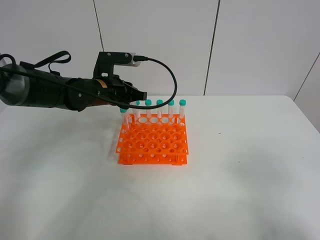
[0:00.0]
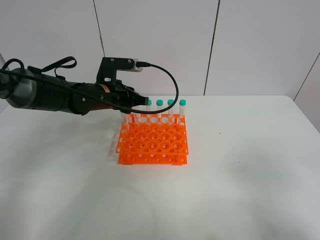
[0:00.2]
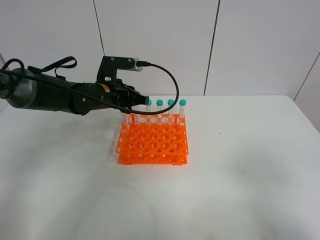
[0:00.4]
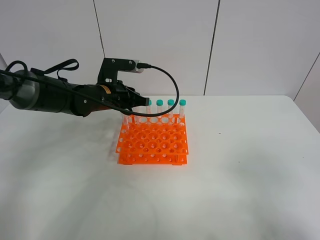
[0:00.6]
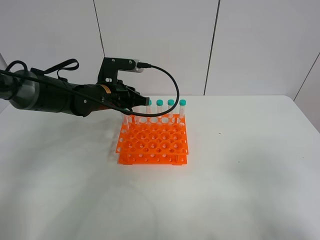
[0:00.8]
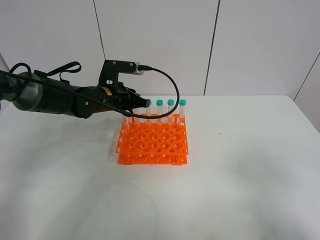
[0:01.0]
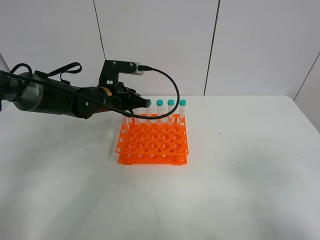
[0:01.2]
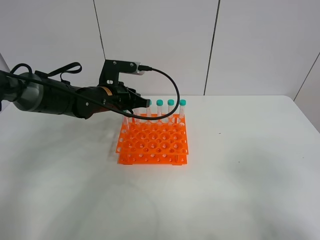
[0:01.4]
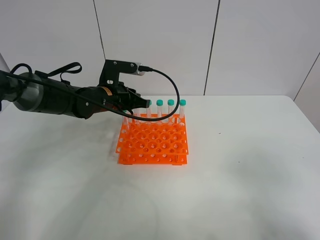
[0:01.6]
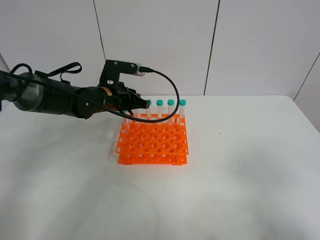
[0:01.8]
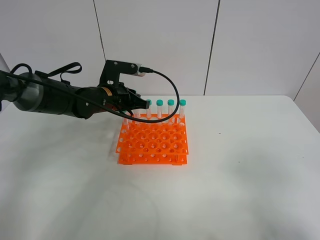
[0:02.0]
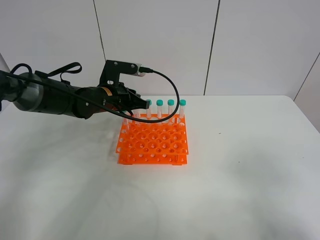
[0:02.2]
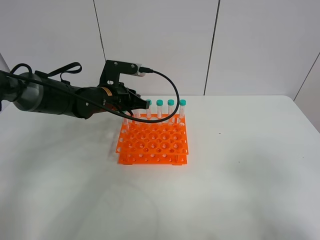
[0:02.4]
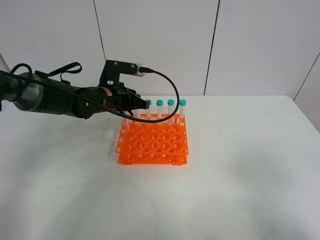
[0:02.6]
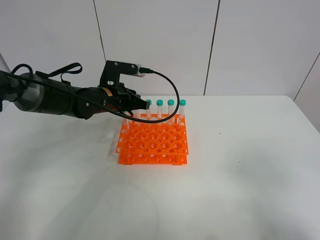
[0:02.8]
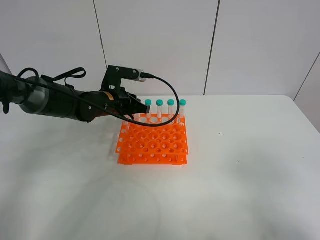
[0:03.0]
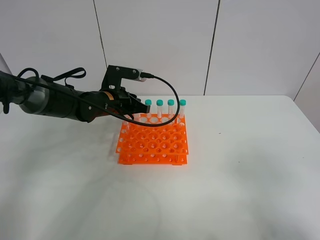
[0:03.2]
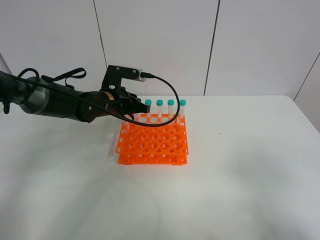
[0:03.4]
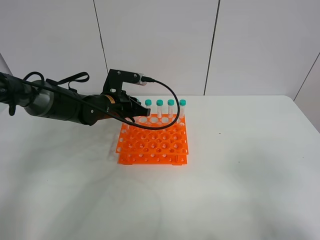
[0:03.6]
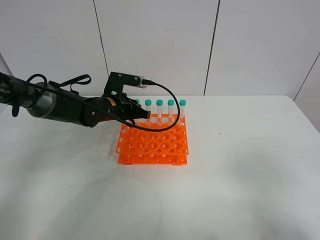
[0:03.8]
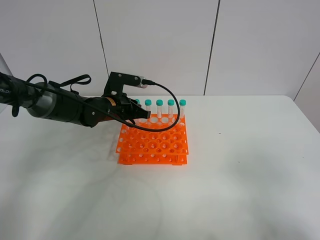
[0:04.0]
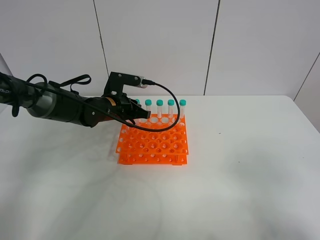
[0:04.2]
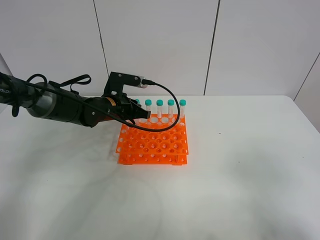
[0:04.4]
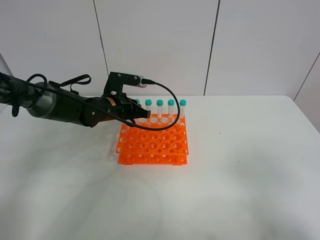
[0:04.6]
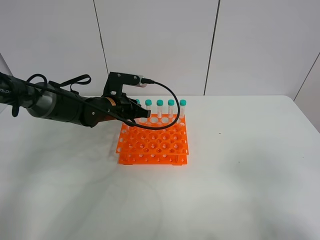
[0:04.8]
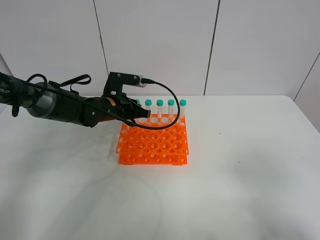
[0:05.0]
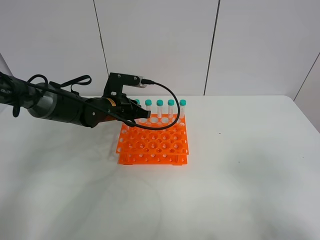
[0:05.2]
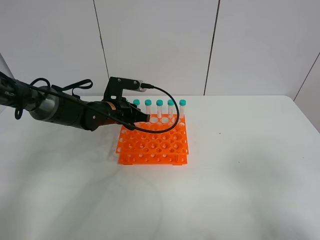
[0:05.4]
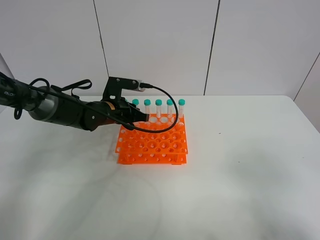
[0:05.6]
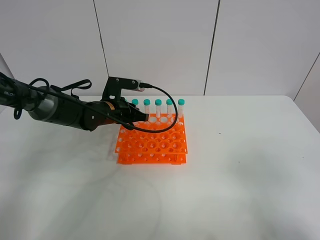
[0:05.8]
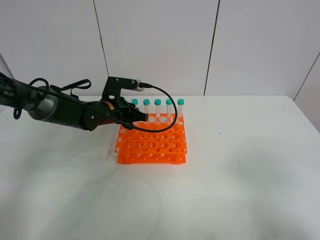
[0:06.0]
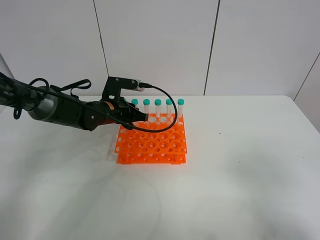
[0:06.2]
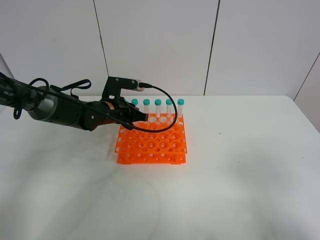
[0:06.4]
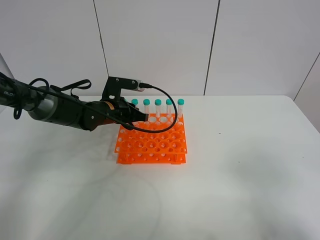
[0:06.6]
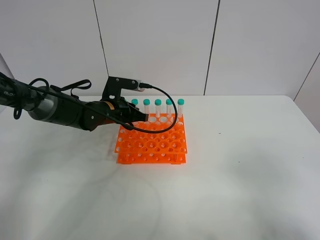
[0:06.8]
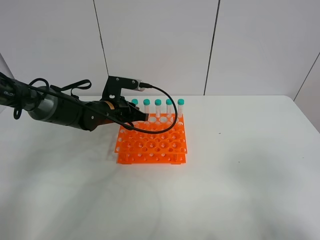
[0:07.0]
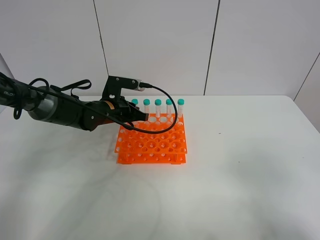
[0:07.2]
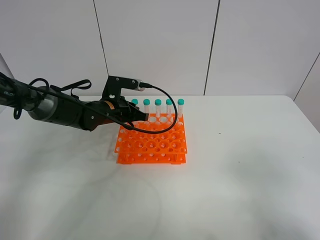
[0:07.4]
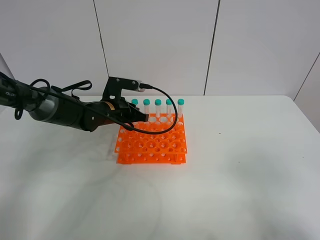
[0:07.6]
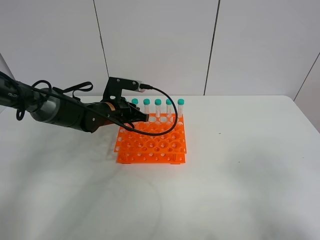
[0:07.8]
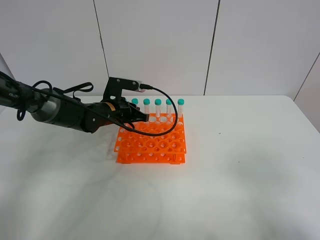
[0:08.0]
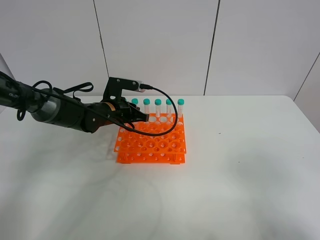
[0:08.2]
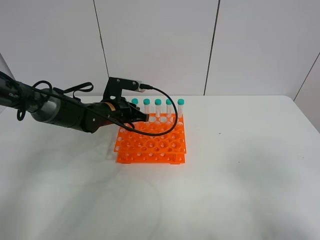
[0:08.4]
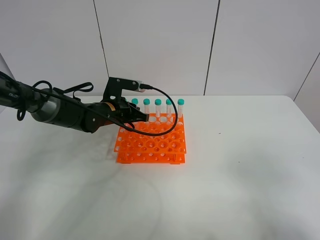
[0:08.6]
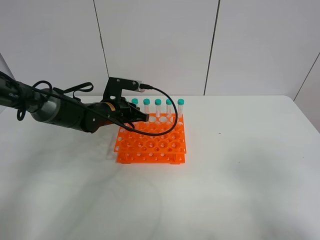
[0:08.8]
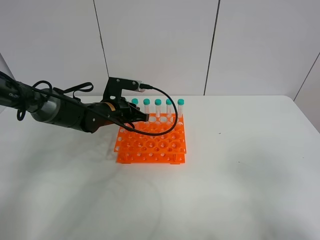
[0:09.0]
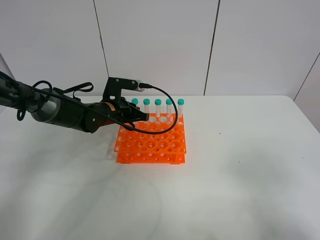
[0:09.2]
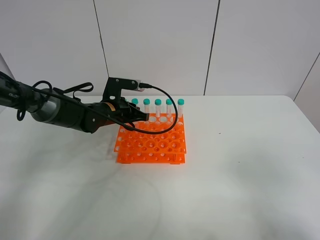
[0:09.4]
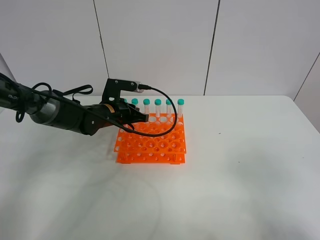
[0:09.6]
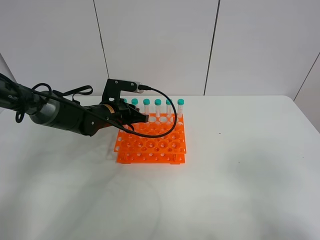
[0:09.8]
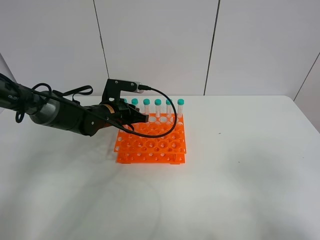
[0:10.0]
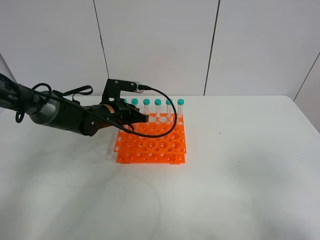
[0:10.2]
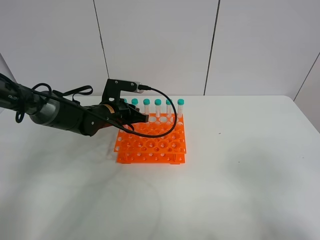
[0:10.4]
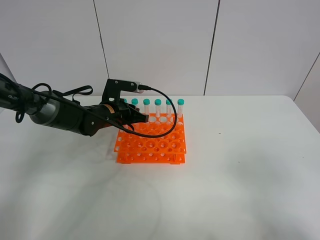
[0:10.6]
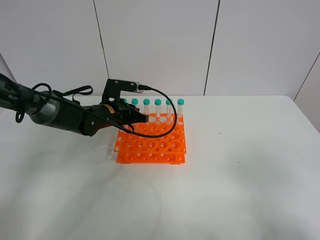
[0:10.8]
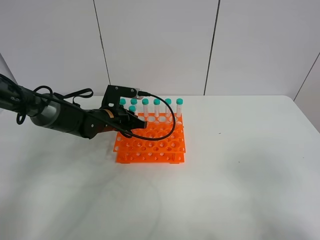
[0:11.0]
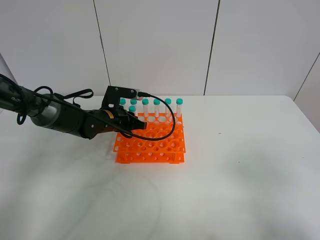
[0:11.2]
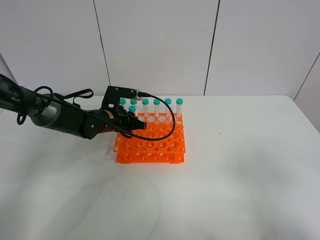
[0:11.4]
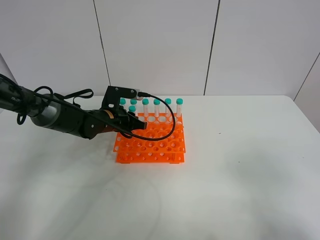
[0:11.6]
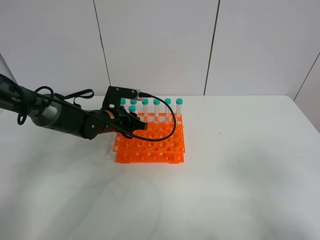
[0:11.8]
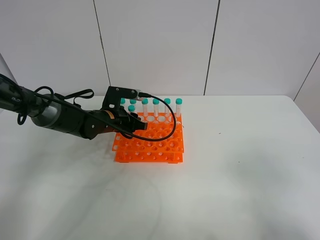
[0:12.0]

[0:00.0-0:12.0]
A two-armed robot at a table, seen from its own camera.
Task of the whole recording: Put the test tube on the table back onto the test tube rack.
Step, 0:00.0 to 0:11.2: Place the test tube on the test tube rack with the left gripper.
0:00.0 to 0:01.6: The grippers make only small movements.
0:01.6 to 0:03.0: Both grippers stay put.
0:03.0 to 0:04.4: There are only small adjustments of the grippers.
0:04.4 to 0:06.0: The two grippers keep their place.
0:06.0 to 0:10.4: Both grippers stay put.
0:10.4 to 0:12.0: Neither gripper changes place.

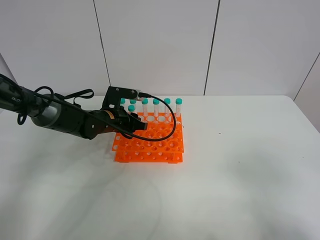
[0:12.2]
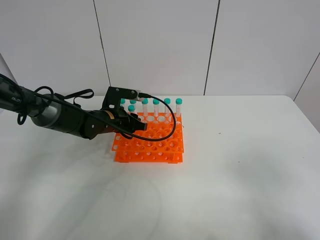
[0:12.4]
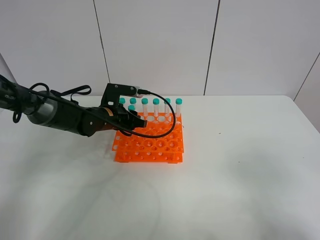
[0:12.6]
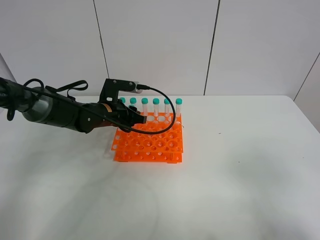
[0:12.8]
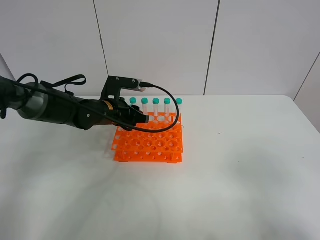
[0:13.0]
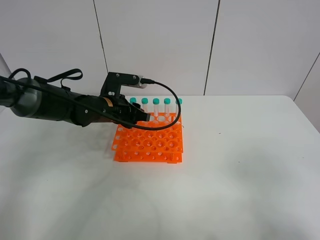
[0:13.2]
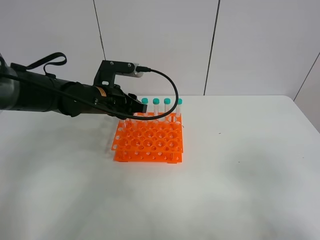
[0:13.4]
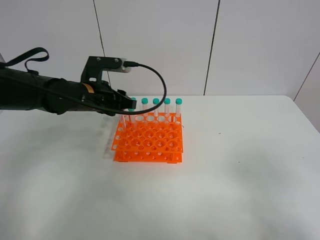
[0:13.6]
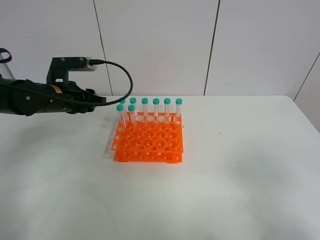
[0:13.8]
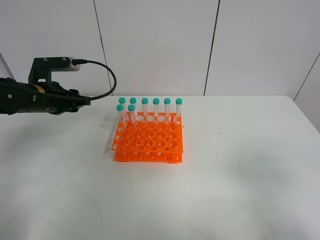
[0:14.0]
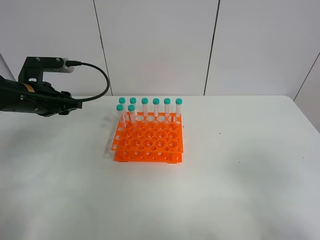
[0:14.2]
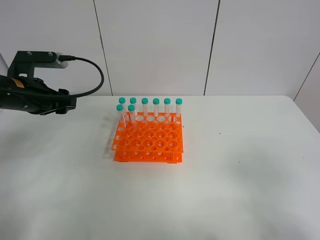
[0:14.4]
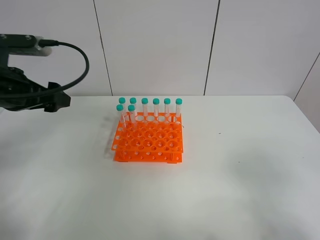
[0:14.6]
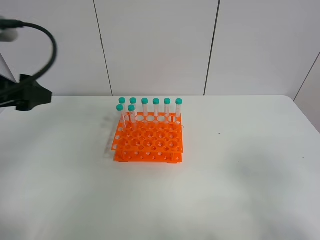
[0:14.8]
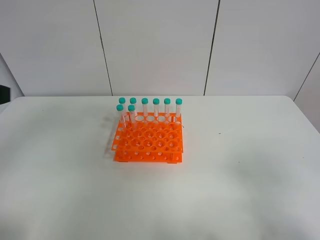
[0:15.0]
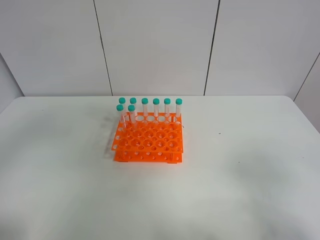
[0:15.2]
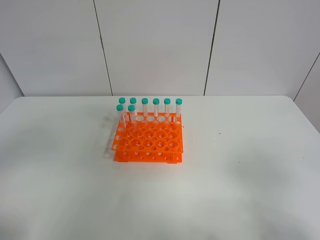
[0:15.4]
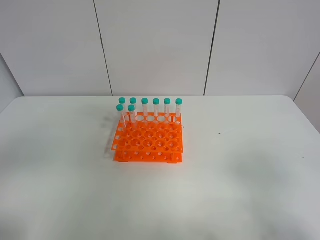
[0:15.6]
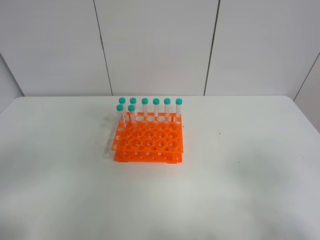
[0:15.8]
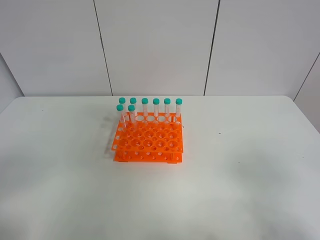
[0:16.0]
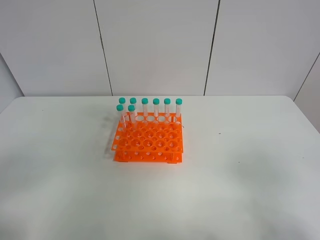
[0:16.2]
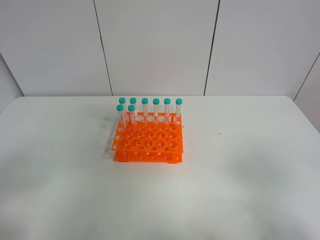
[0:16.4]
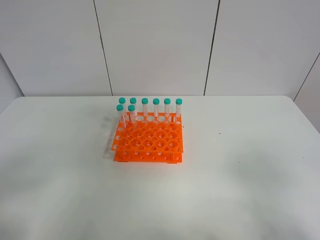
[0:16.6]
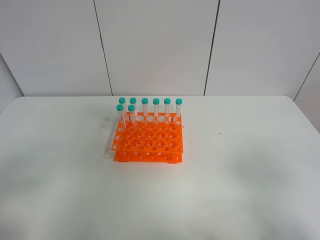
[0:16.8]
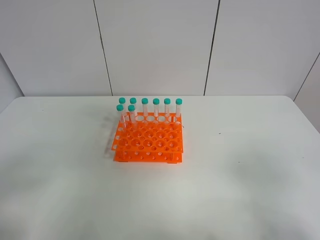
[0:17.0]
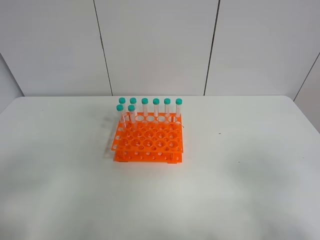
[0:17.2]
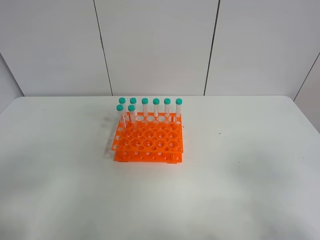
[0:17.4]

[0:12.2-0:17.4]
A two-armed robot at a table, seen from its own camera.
Task of the whole recording: Put the test tube on the table back onto the test tube rack.
0:12.2 to 0:14.0: The left gripper heads to the left and upward, covering some 15 cm.
0:14.0 to 0:15.6: The left gripper heads backward and upward, covering some 40 cm, and opens.

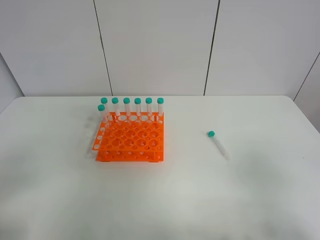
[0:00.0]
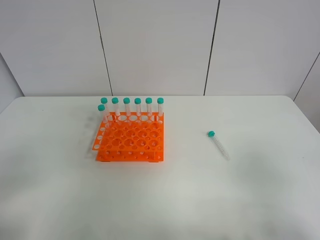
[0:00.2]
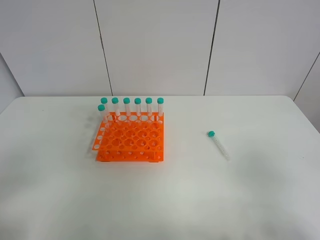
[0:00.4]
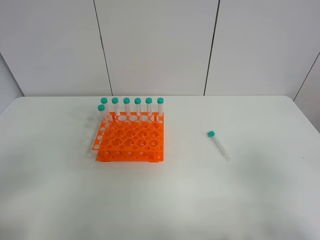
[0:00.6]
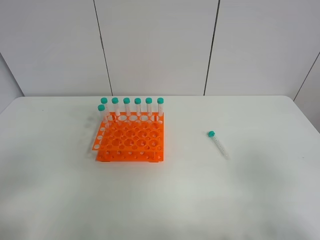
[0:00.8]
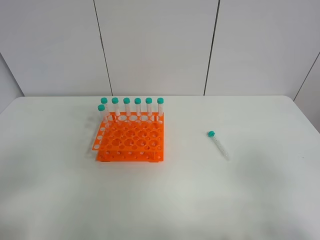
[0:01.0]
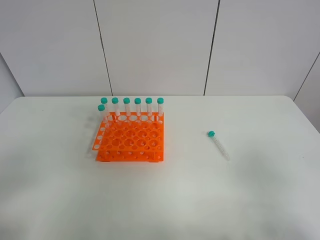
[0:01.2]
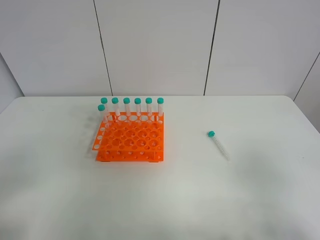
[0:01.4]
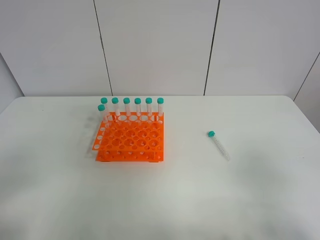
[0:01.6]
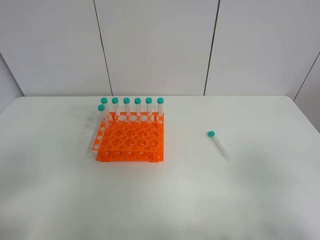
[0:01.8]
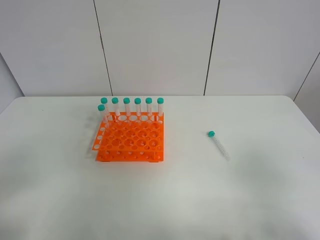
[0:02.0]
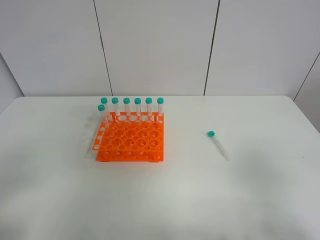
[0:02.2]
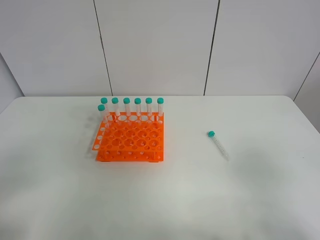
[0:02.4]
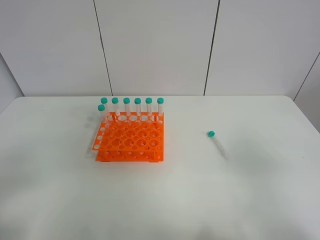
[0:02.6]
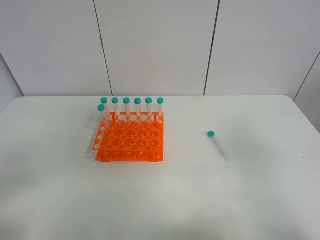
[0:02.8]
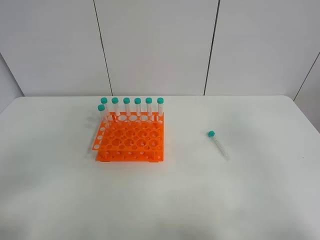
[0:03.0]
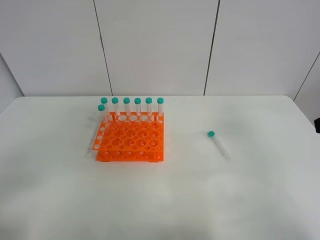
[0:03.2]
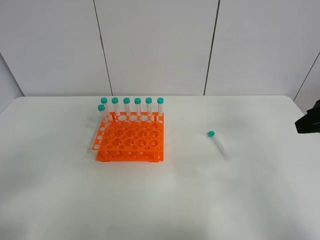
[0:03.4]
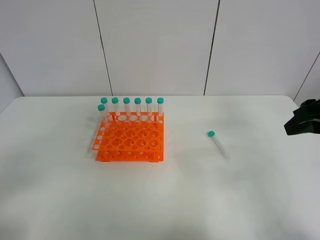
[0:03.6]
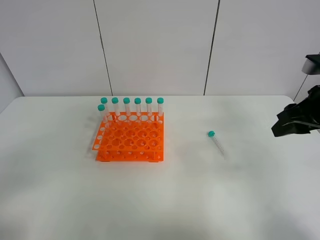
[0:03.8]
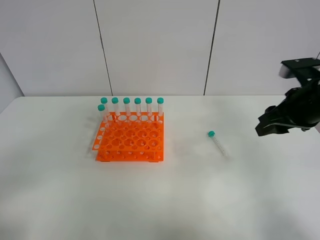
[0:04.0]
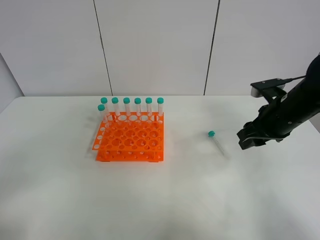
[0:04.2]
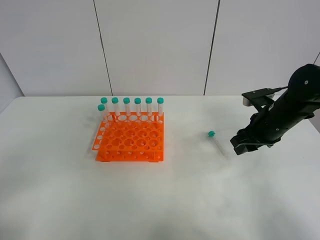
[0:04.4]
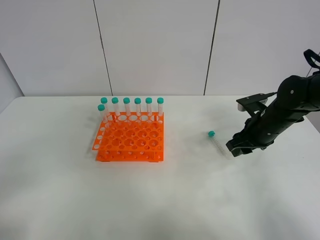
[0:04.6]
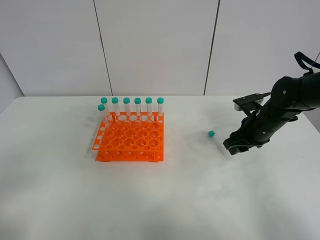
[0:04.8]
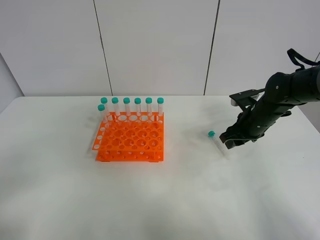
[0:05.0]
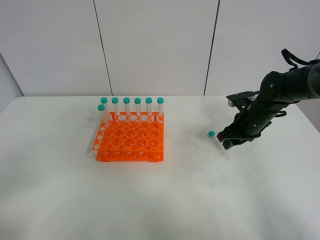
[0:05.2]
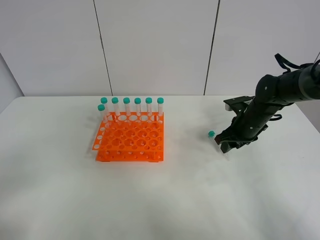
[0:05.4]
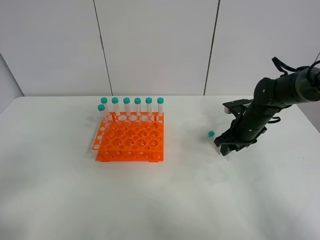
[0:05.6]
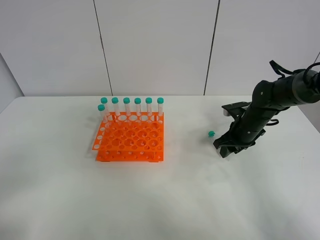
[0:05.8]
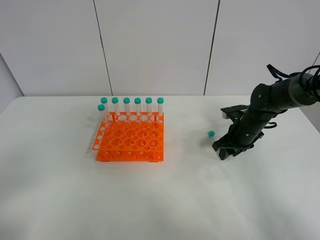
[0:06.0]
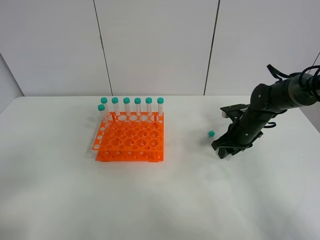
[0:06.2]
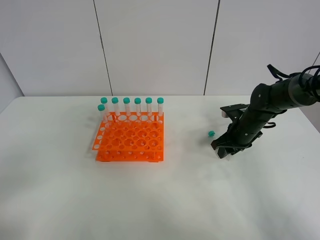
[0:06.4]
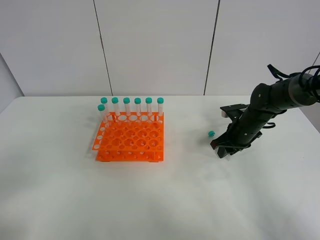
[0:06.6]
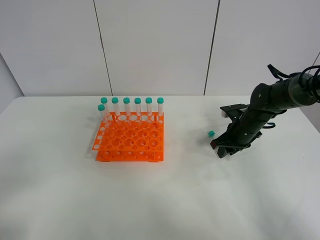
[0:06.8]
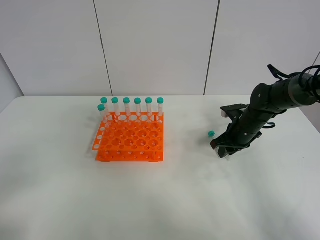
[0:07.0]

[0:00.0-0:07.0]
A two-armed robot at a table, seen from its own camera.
Task of the whole recording: Put the test tube on the table back onto the test tube rack.
0:00.0 to 0:01.4: The two grippers keep their place.
0:02.8 to 0:04.2: The right gripper heads forward and downward, covering roughly 25 cm.
0:04.2 to 0:05.6: The right gripper heads downward and forward, covering roughly 10 cm.
0:05.6 to 0:07.0: There are only small adjustments of the grippers.
